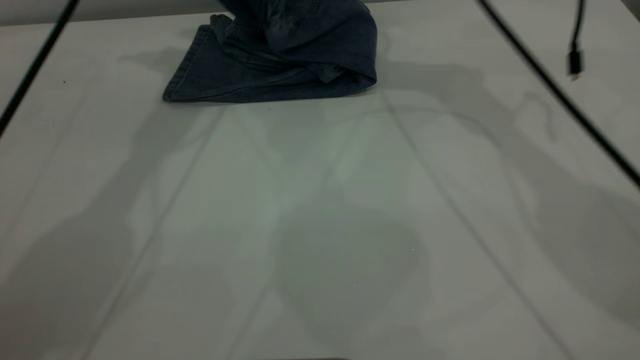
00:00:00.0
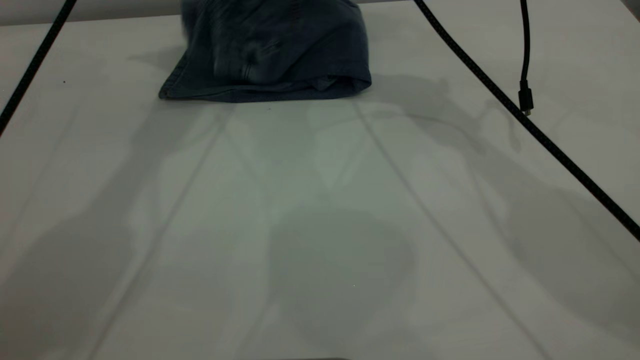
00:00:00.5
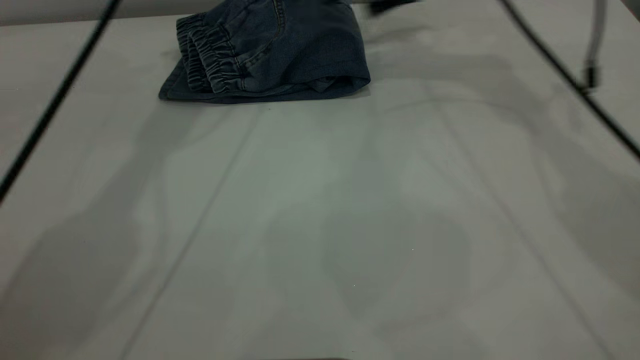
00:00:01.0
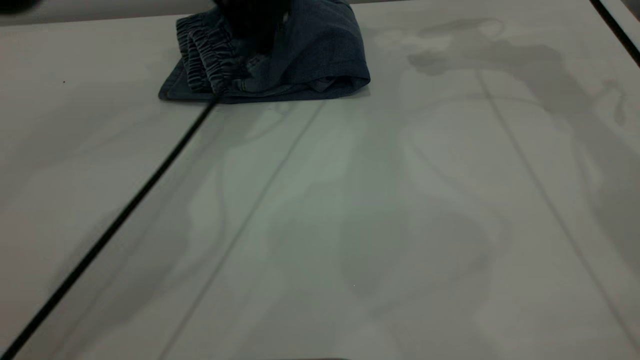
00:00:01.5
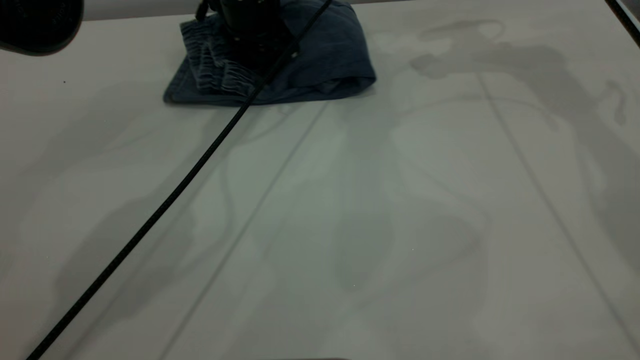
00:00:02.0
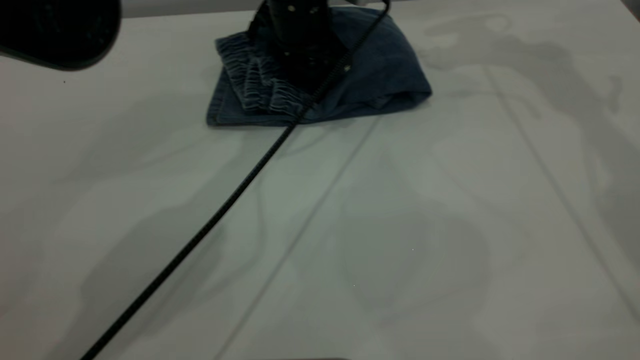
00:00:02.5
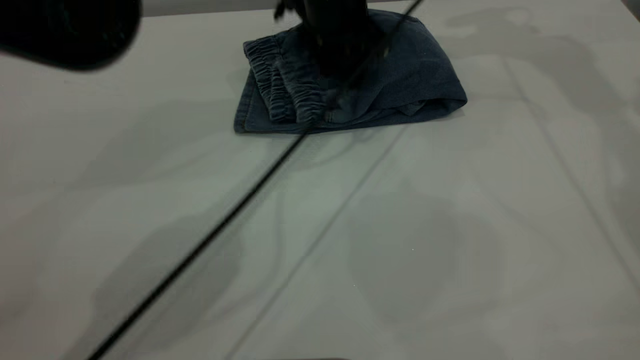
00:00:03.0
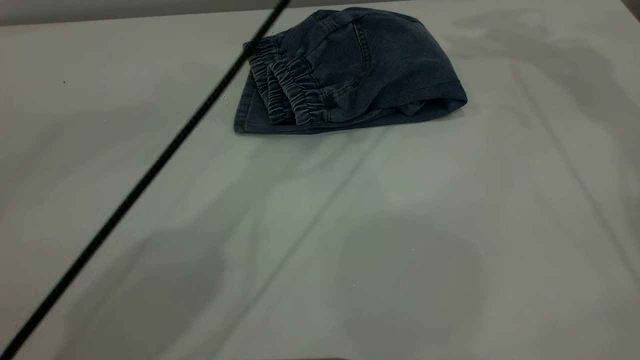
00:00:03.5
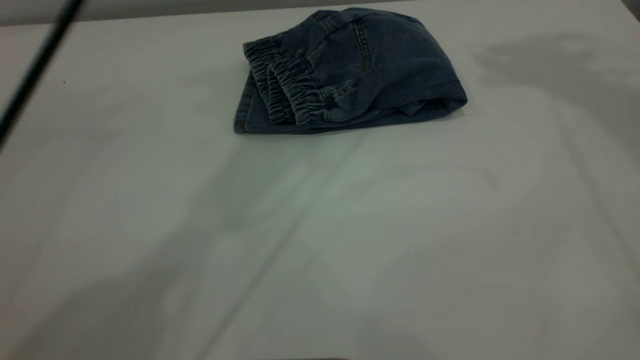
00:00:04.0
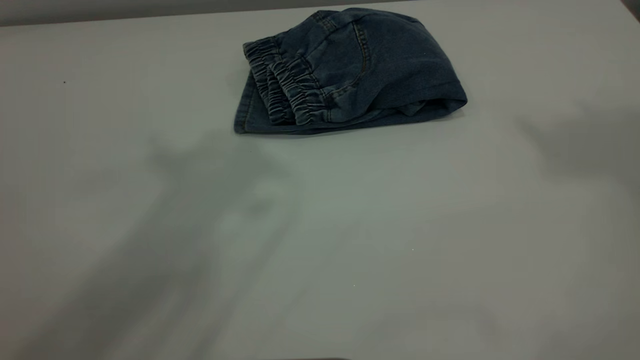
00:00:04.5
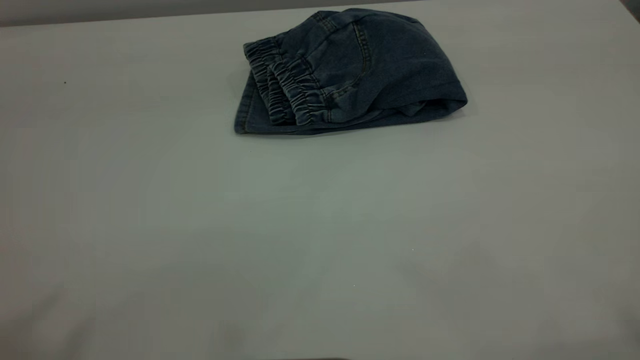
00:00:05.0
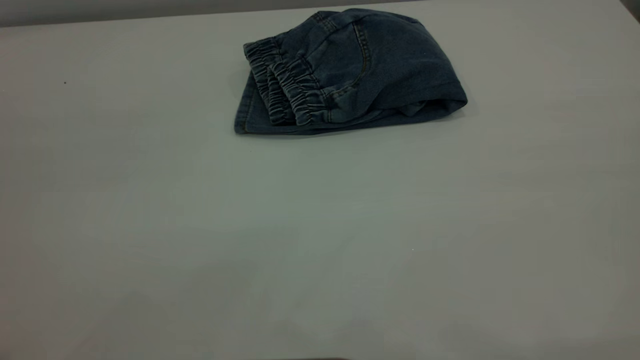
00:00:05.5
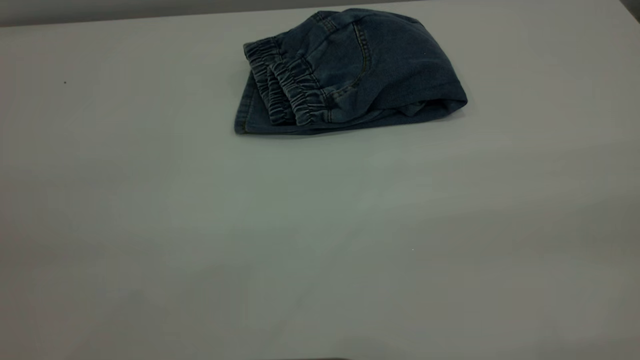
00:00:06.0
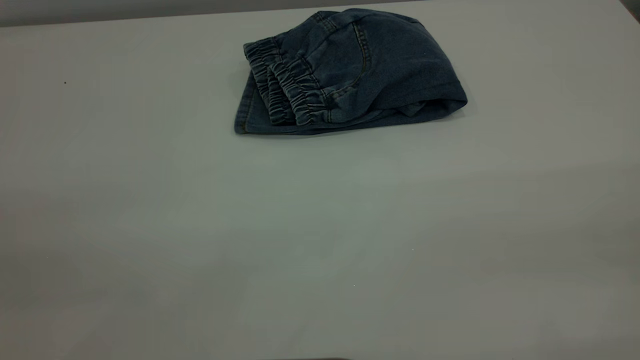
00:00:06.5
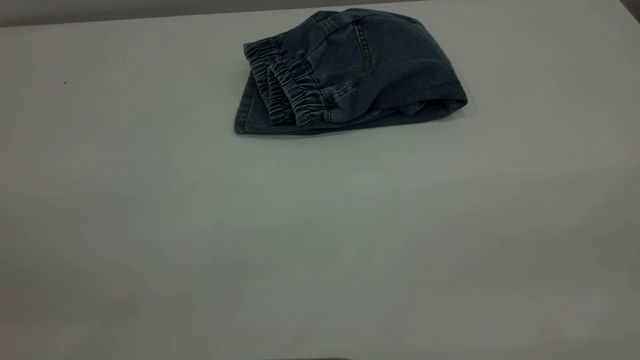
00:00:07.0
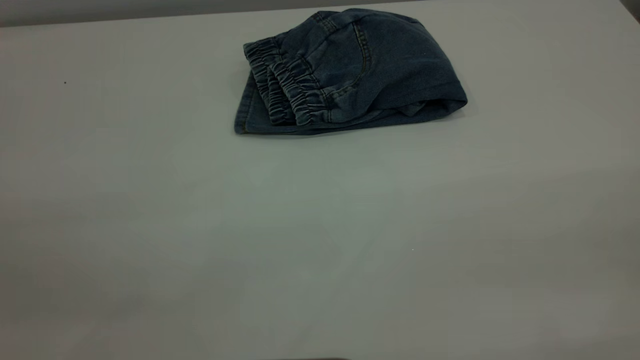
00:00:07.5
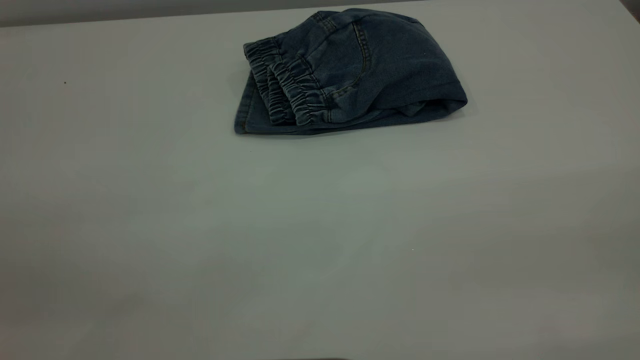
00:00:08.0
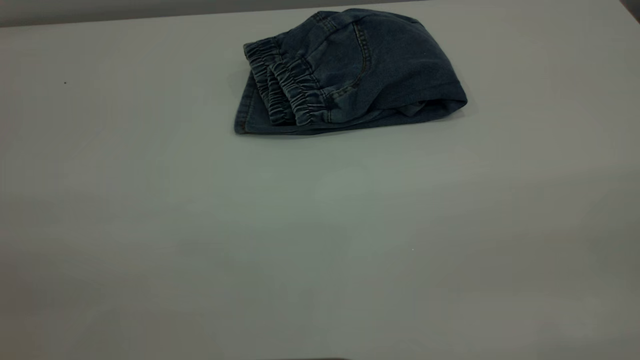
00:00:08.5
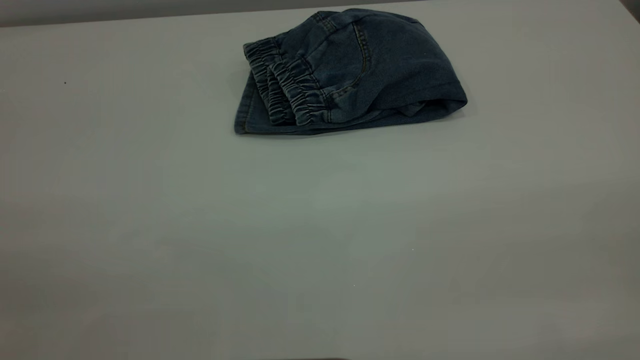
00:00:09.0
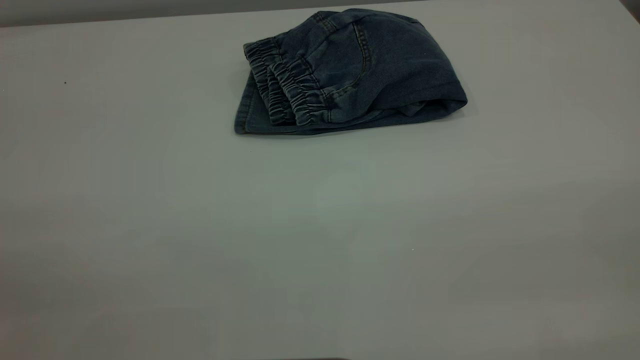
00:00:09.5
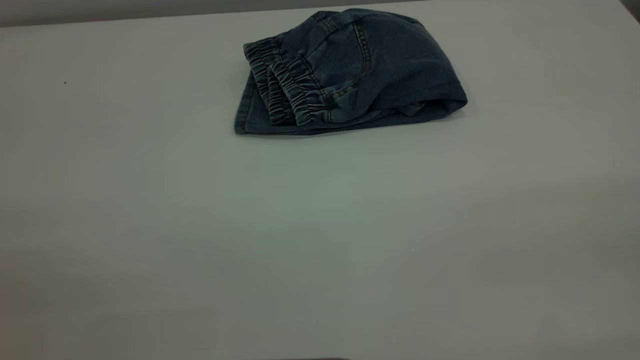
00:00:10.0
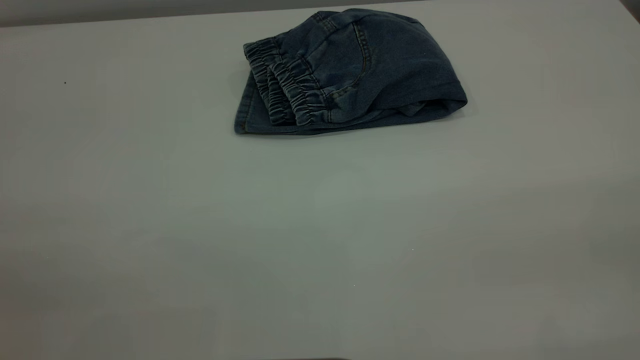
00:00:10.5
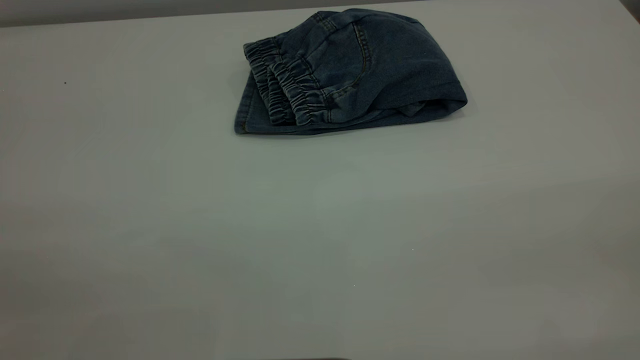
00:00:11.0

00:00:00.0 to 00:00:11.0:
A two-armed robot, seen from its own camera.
00:00:00.0 to 00:00:02.0: The right gripper is displaced to the right by about 15 cm, and opens its fingers, while the left gripper heads downward and to the right, covering approximately 20 cm.
00:00:02.0 to 00:00:03.5: The right gripper goes about 15 cm upward. The left gripper goes some 20 cm upward and to the right.
00:00:03.5 to 00:00:05.5: The right gripper travels backward by some 50 cm, while the left gripper goes some 50 cm backward and to the left.
